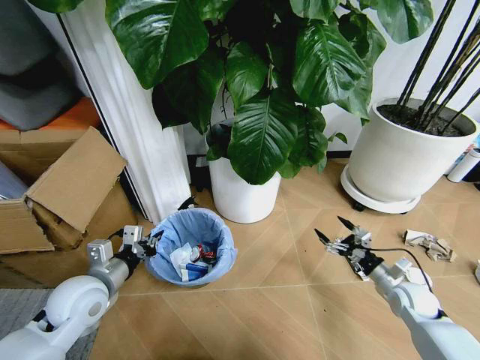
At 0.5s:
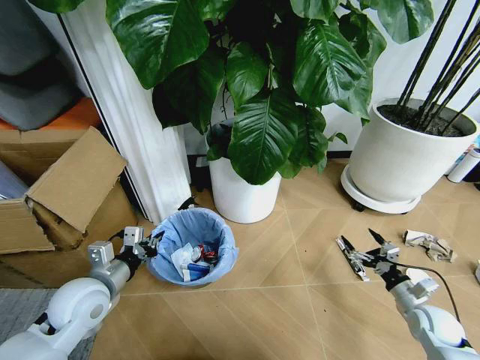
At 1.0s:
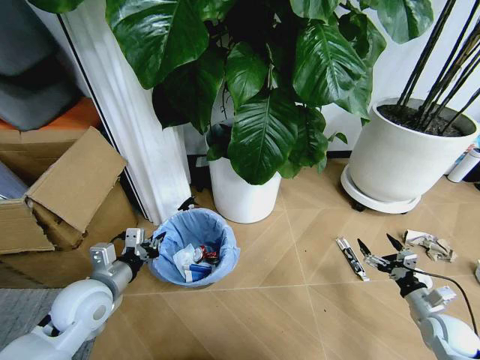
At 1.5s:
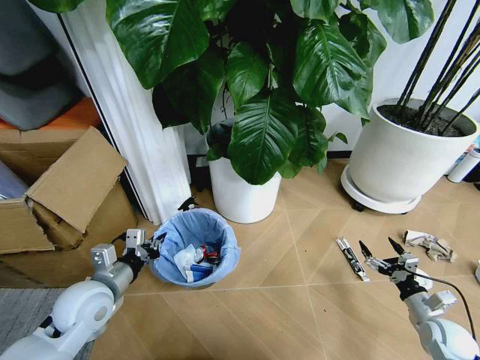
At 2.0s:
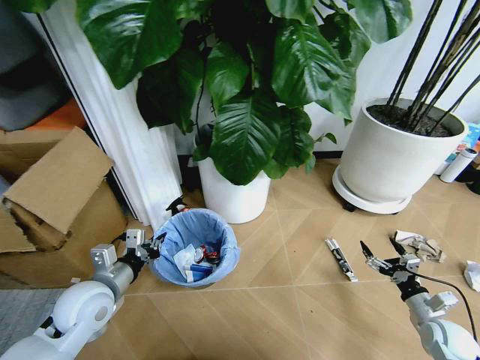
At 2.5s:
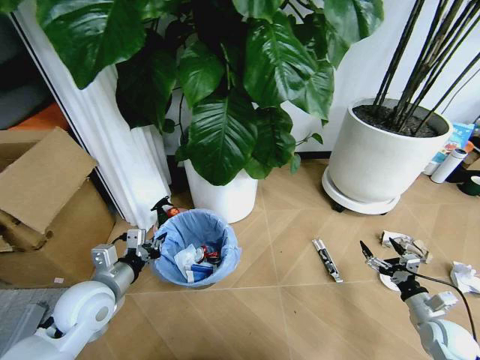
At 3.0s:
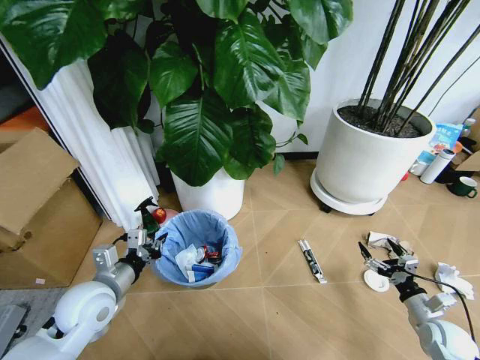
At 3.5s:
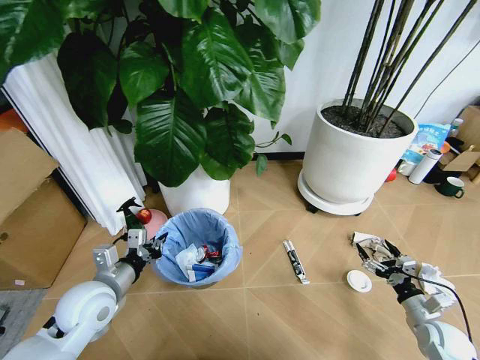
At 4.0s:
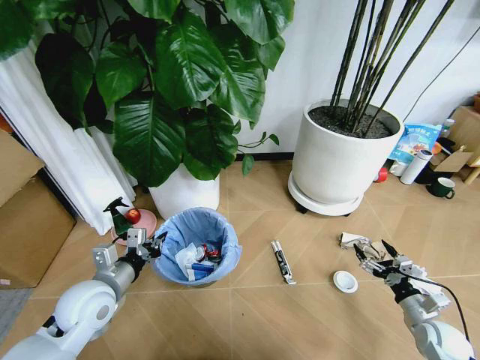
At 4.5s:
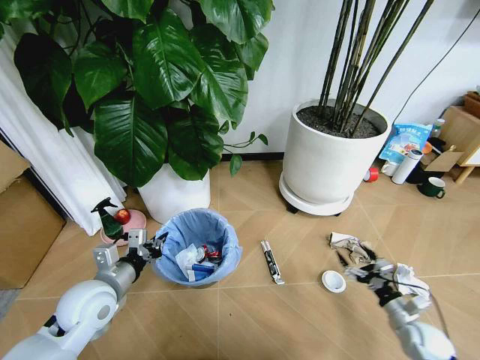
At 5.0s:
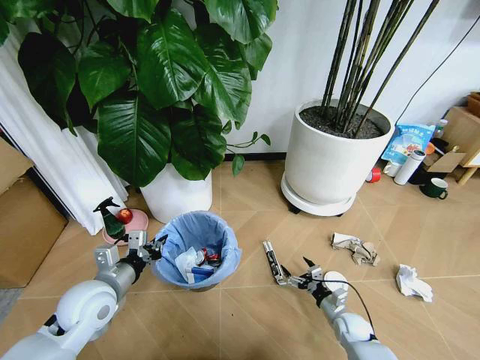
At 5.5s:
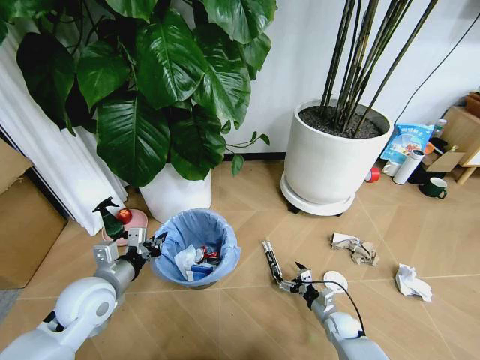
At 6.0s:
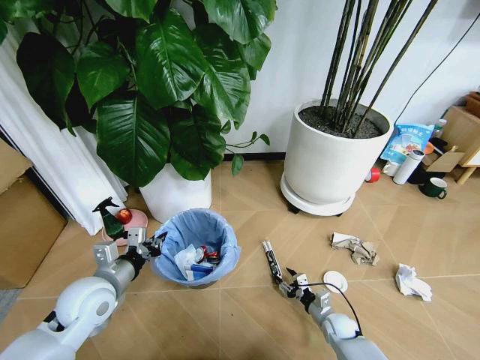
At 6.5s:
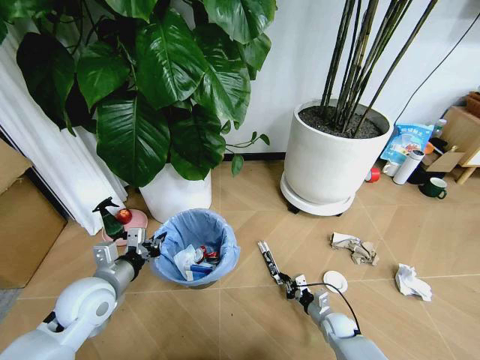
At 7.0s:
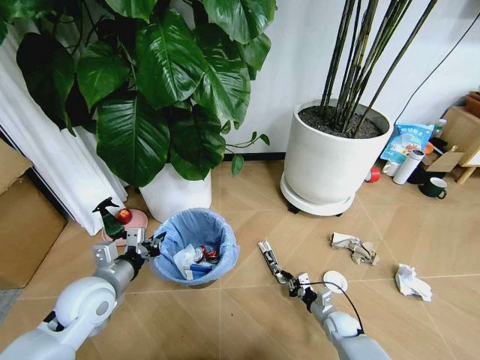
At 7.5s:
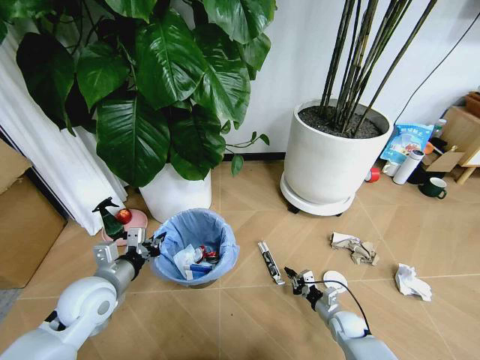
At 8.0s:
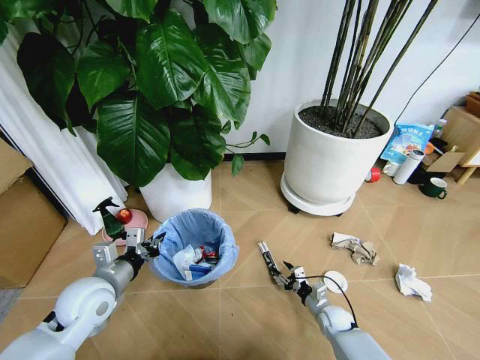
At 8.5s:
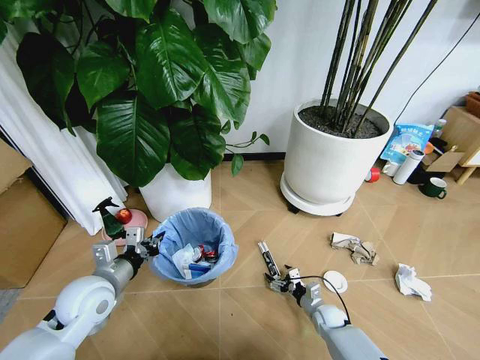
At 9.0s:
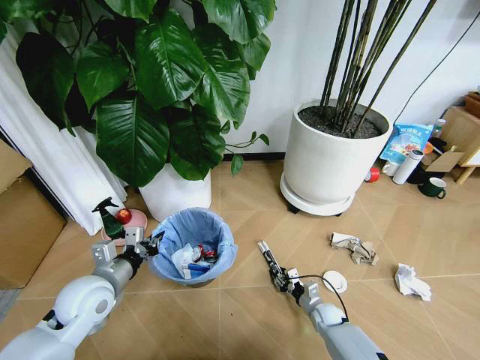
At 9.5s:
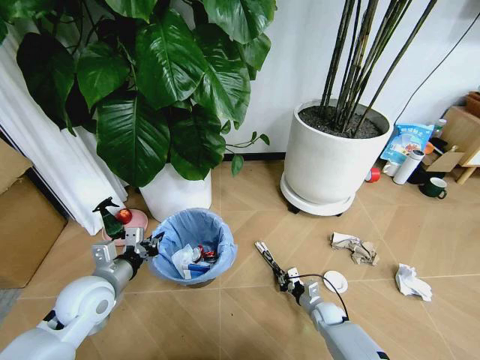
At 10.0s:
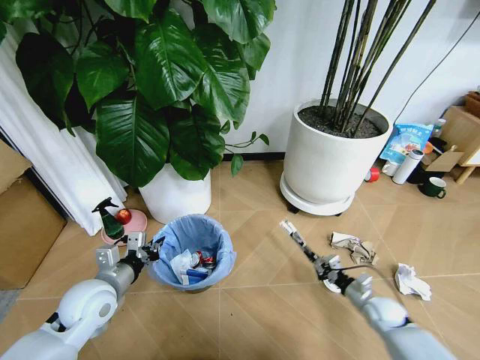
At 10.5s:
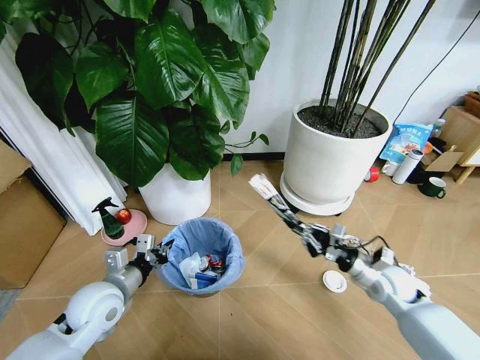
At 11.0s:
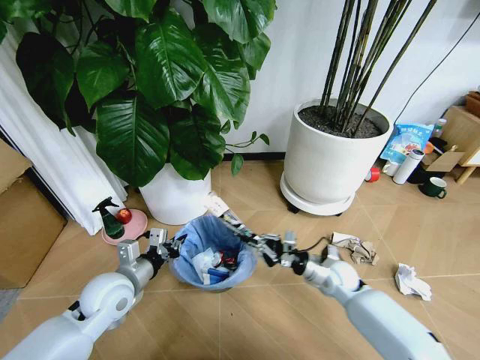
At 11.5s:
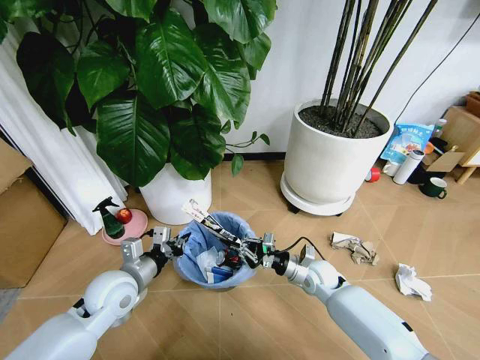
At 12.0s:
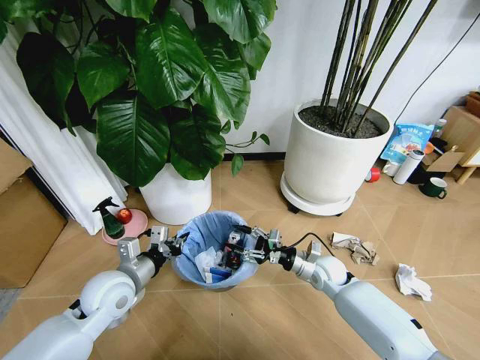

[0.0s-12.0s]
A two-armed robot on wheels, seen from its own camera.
Task of the whole recording: Pick up the trash bin and place the garbage on the floor into it.
0.0s to 2.0s: The right gripper travels backward and to the right by about 10 cm.
4.0s to 6.0s: The right gripper moves to the left and downward, approximately 25 cm, and closes up.
6.0s to 8.0s: The right gripper closes, then reopens.
8.0s to 10.0s: The right gripper heads to the right and upward, covering some 15 cm, and closes its fingers.
10.0s to 12.0s: The right gripper shifts approximately 20 cm to the left, forward and upward, and opens up.

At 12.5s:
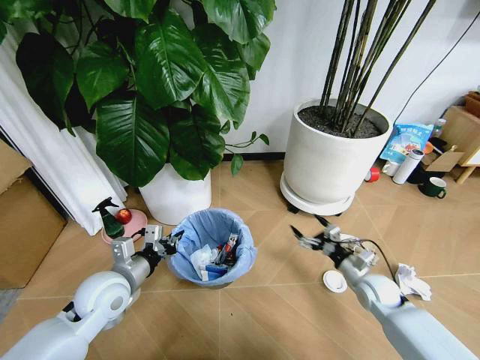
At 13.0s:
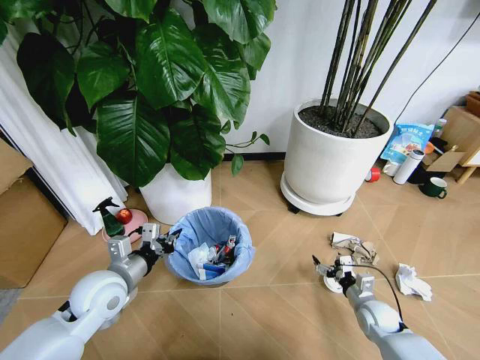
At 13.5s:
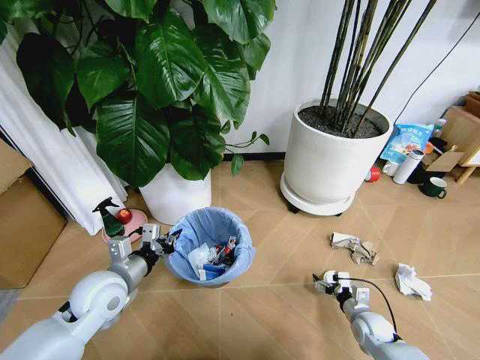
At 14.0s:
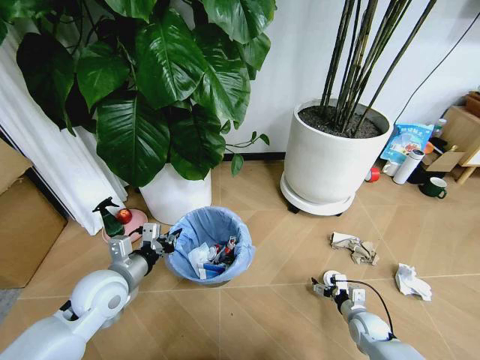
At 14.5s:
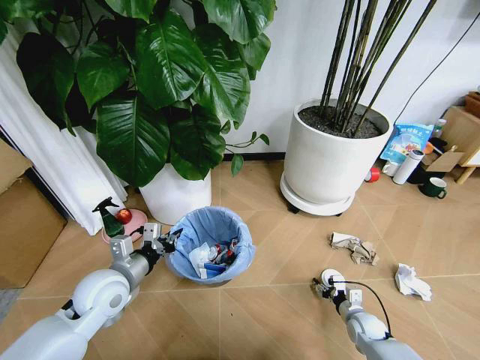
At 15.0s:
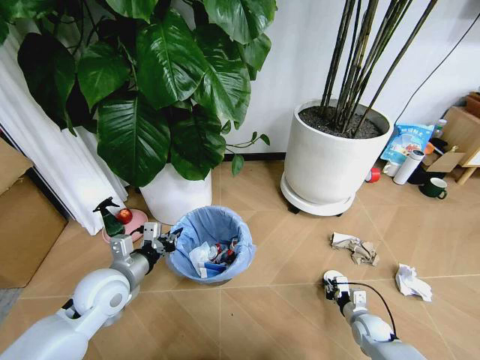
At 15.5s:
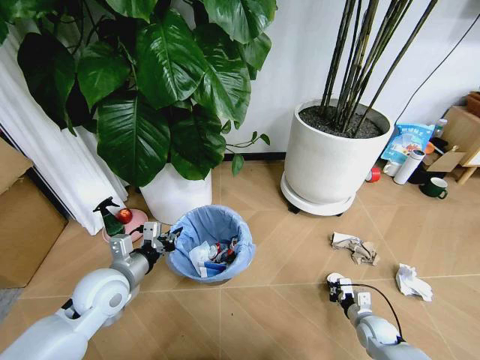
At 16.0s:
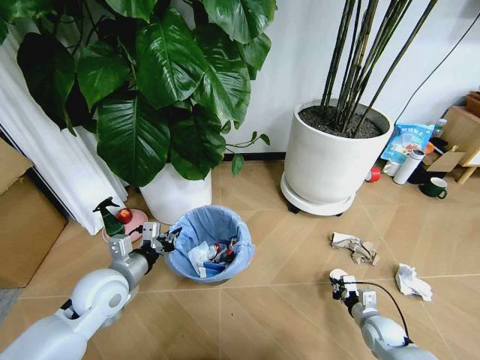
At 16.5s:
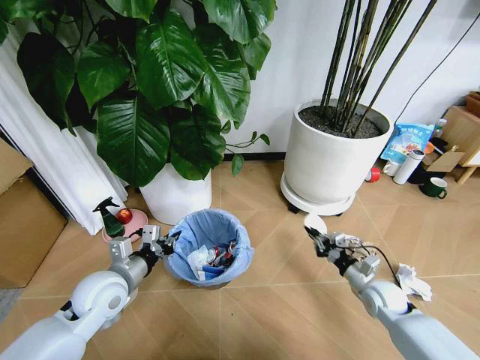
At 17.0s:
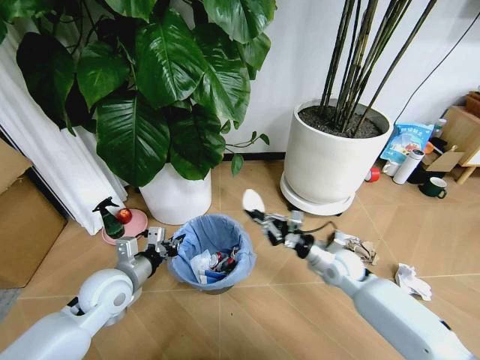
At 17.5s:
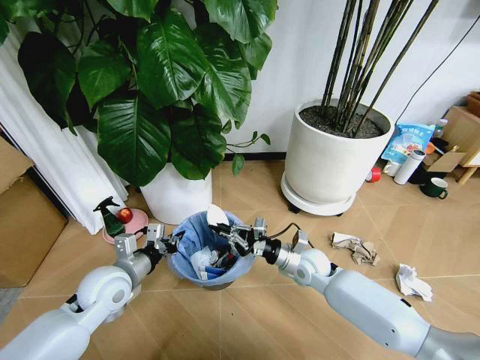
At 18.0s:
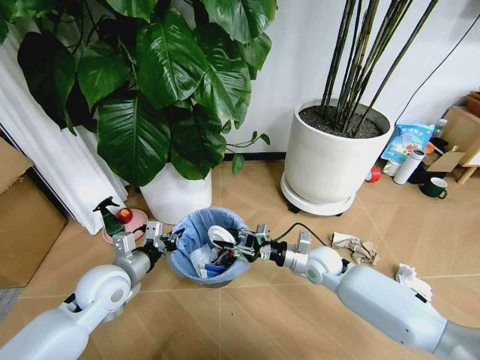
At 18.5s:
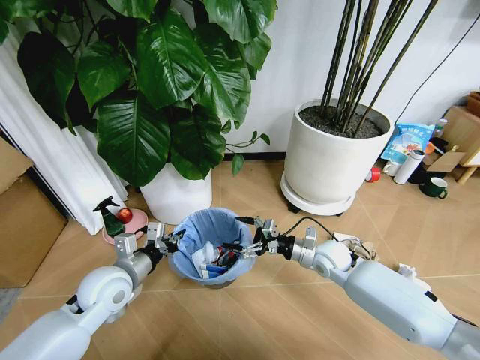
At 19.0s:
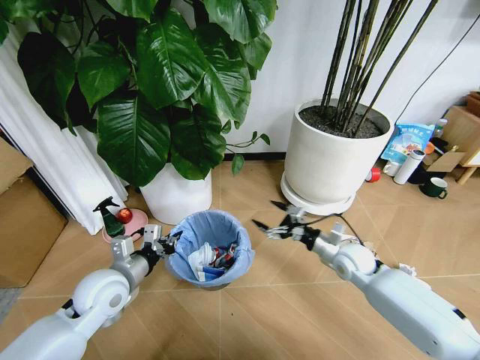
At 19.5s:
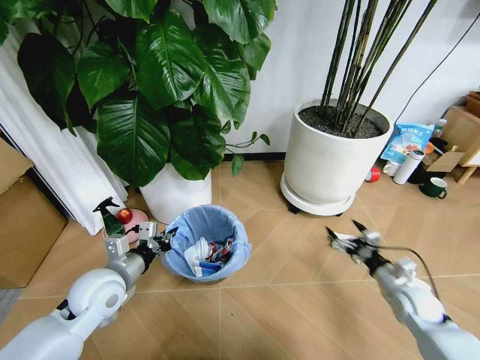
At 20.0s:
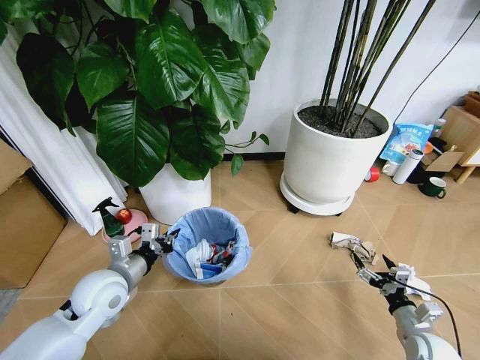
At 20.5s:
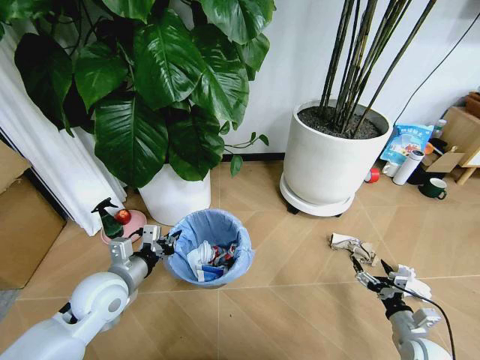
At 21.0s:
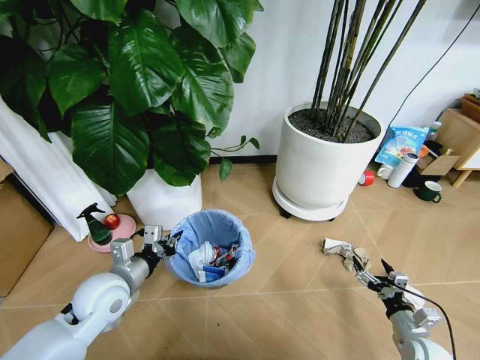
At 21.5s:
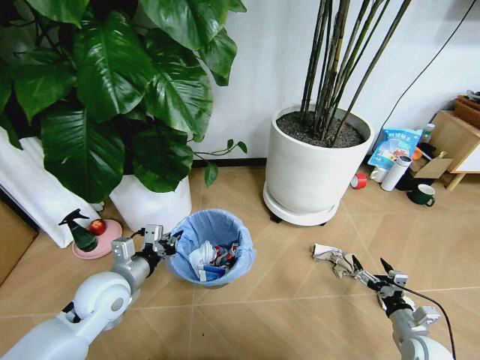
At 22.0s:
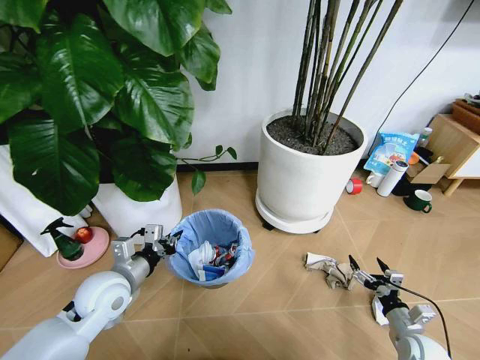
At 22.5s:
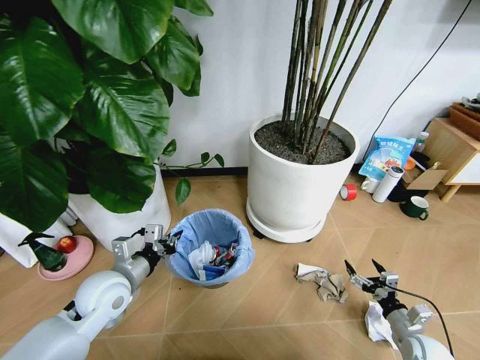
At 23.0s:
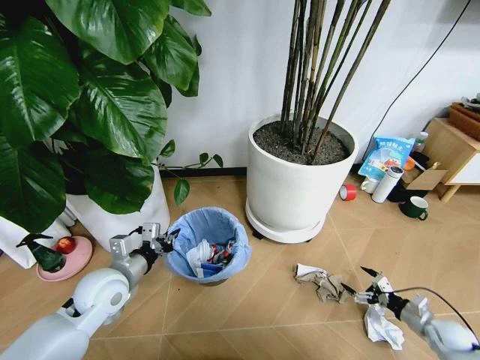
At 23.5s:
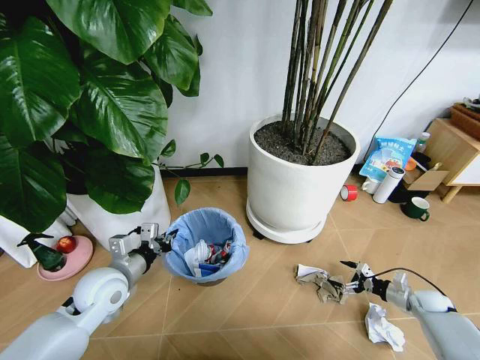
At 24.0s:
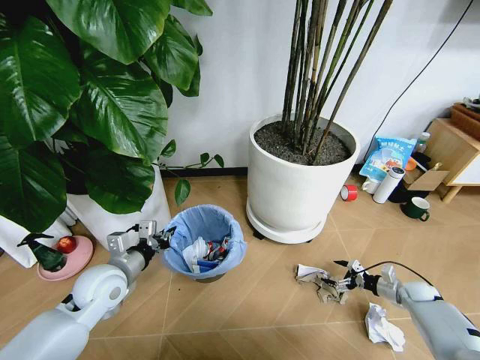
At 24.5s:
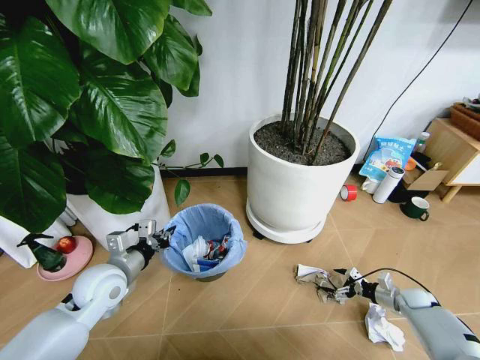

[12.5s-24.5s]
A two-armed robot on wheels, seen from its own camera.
Task of the whole recording: Pick up the trash bin and place the garbage on the floor into it.
12.5s to 14.5s: The right gripper travels downward and backward by some 15 cm.
14.5s to 16.5s: The right gripper heads upward, covering about 15 cm, and closes.
16.5s to 18.5s: The right gripper shifts some 20 cm to the left, forward and upward, and opens its fingers.
18.5s to 20.5s: The right gripper goes some 30 cm backward, to the right and downward.
22.5s to 24.5s: The right gripper shifts approximately 15 cm forward and to the right.

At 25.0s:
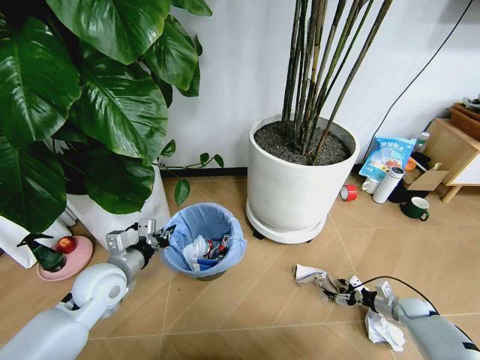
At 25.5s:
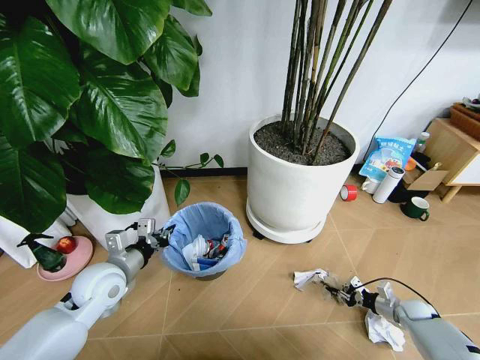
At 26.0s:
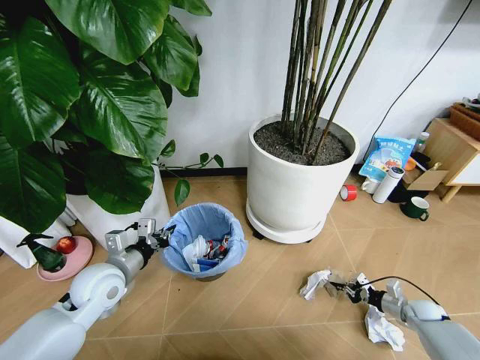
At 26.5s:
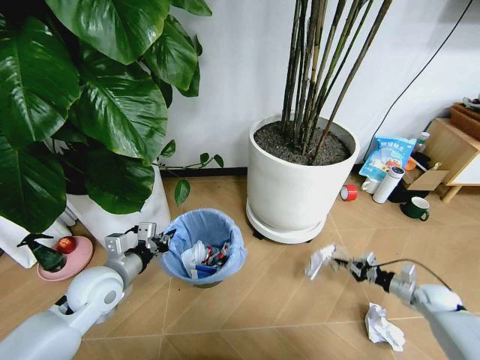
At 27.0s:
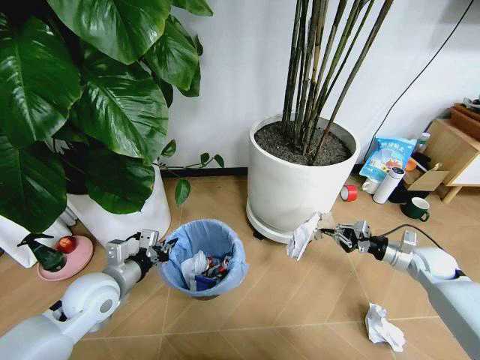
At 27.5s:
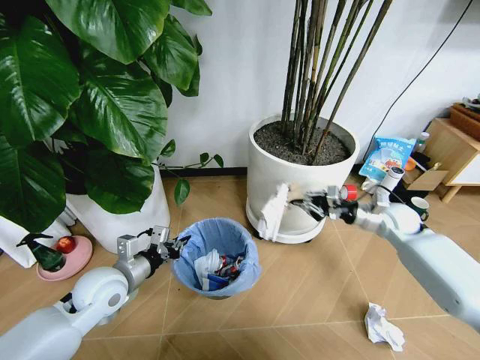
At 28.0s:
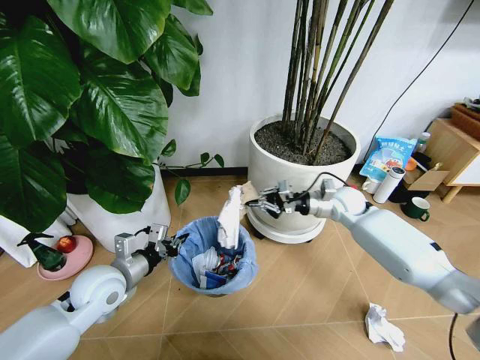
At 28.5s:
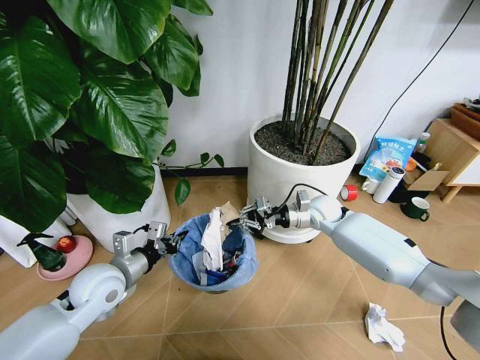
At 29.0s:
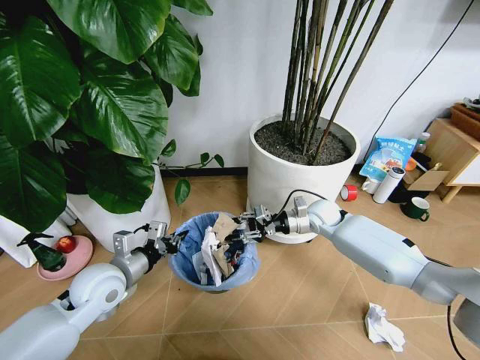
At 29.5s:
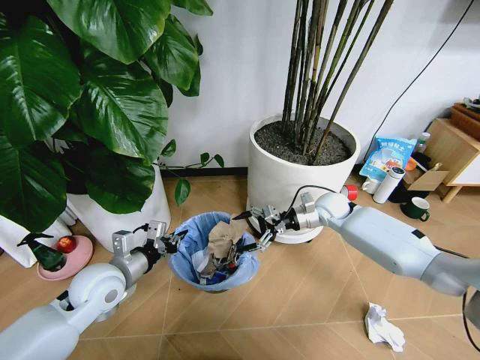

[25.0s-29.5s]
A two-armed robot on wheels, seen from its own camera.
Task of the whole recording: Pick up the trash bin and place the garbage on the floor into it.
25.0s to 27.0s: The right gripper shifts approximately 20 cm upward, and closes its fingers.
27.0s to 29.5s: The right gripper shifts some 25 cm to the left and forward, and opens.
